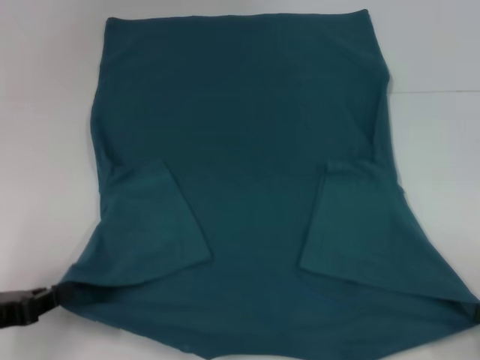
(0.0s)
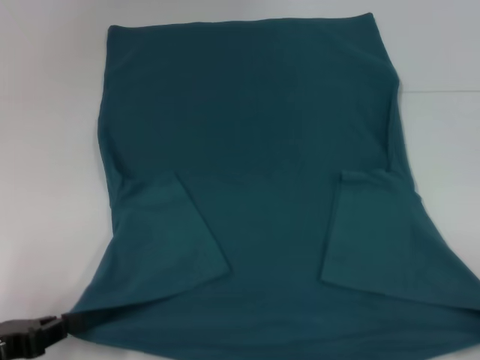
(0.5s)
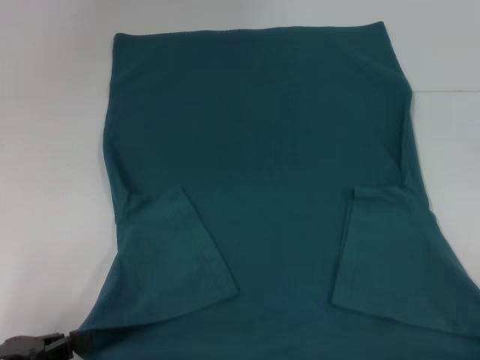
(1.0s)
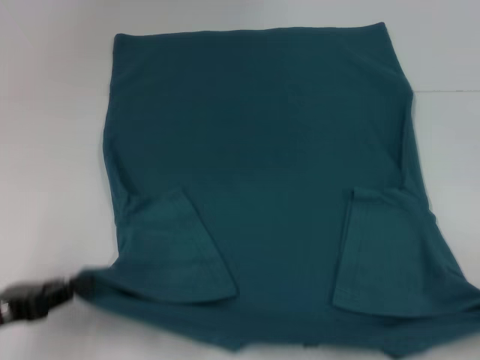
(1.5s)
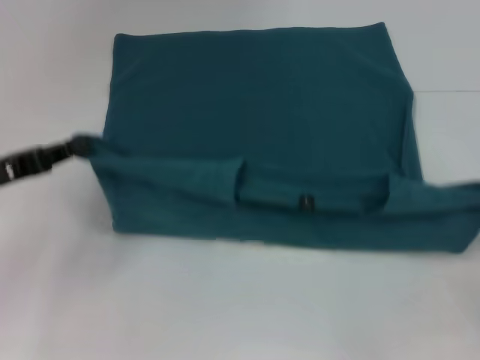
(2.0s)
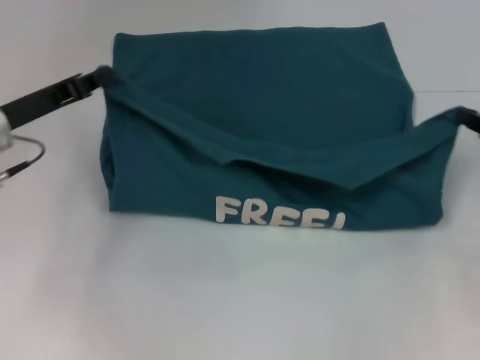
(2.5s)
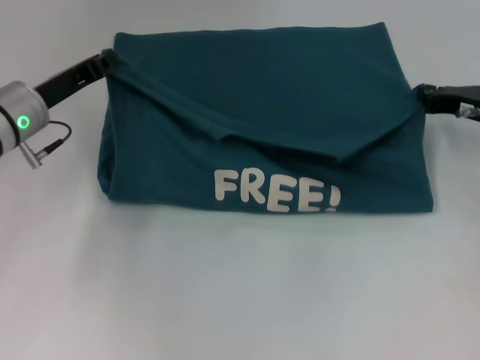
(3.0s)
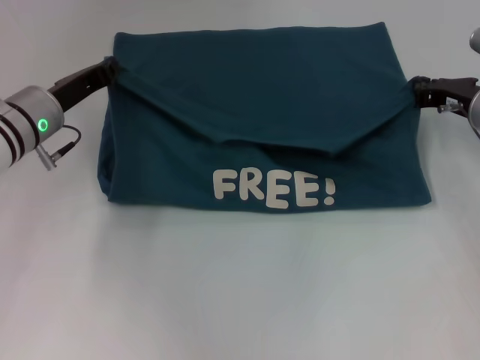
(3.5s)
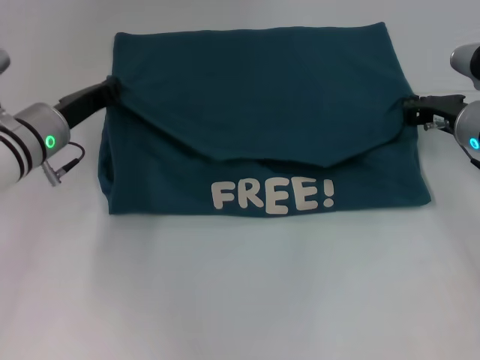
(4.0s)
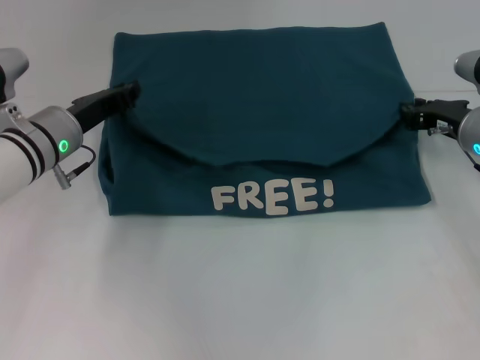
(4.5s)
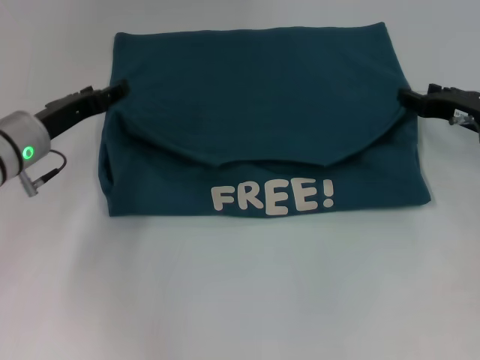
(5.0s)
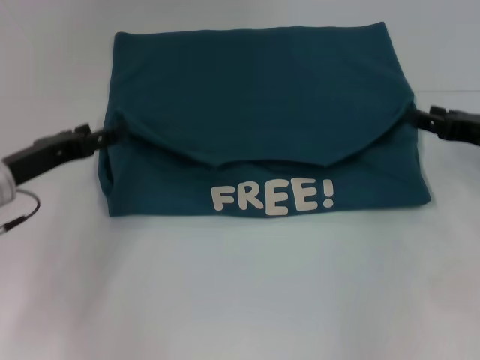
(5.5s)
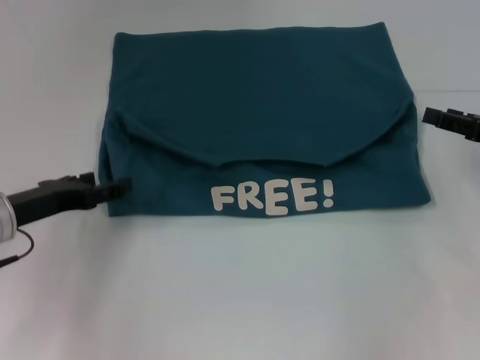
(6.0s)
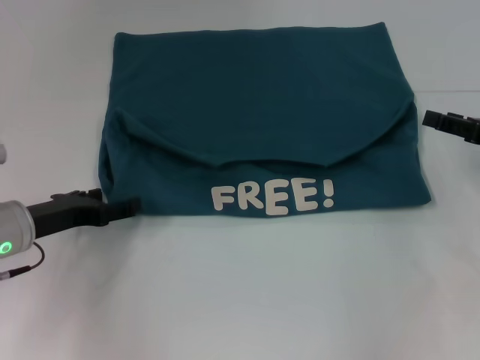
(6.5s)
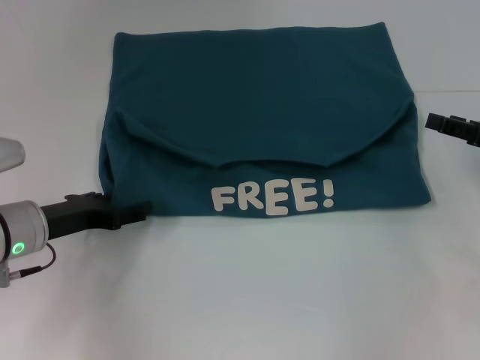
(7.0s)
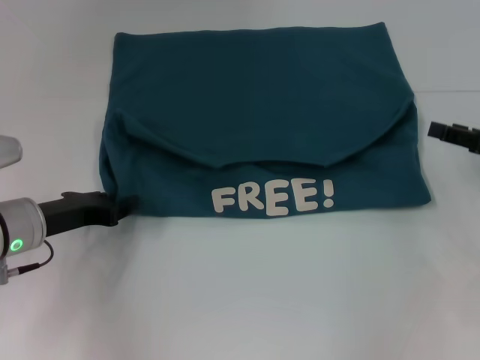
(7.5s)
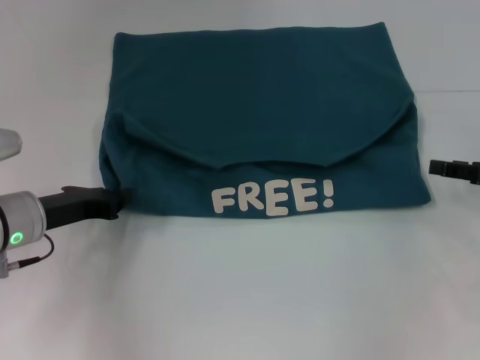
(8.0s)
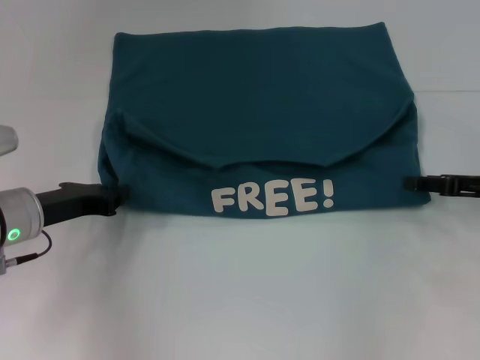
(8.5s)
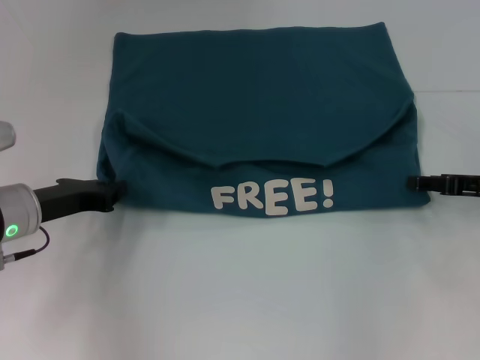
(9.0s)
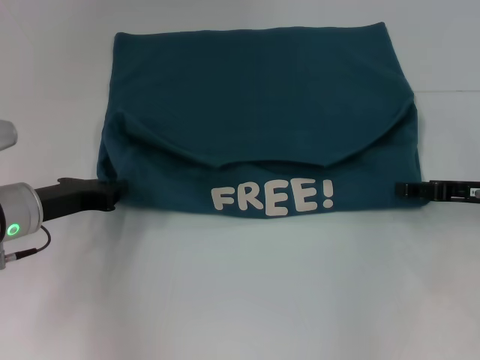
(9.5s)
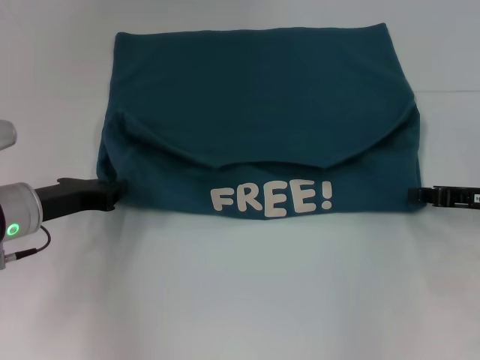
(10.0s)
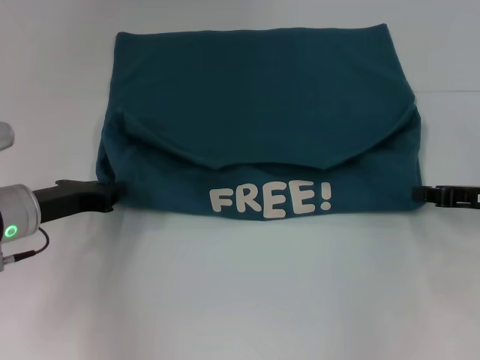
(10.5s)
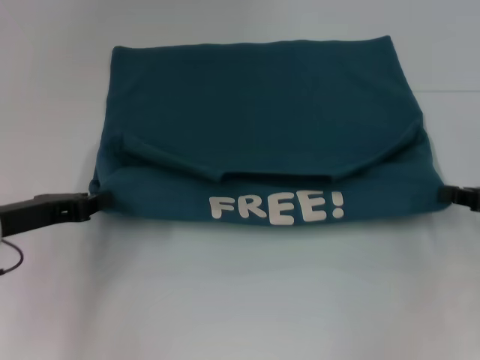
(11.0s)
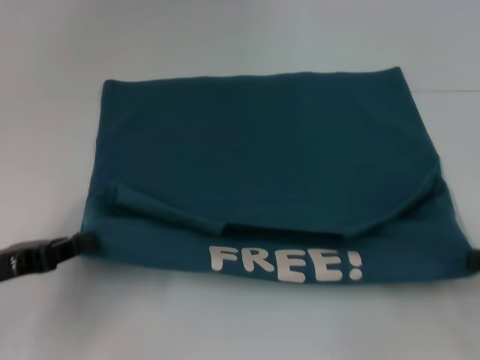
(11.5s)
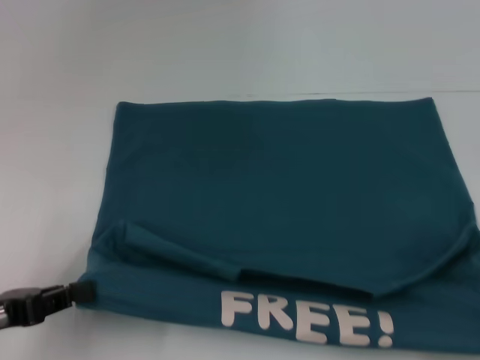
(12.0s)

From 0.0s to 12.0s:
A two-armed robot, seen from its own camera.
Step, from 0.0s to 4.5s: Fold the clothes to the left.
Step, from 0.0s to 4.5s: Fold the clothes to the right.
From 0.0s to 2.0s: The two grippers go some 10 cm forward and upward.
From 2.0s to 4.0s: The right gripper heads forward and to the left, covering approximately 25 cm, while the left gripper travels forward and to the right by approximately 15 cm.
From 4.0s to 6.0s: The right gripper travels to the right and backward by about 10 cm, and opens up. The left gripper goes about 10 cm backward, and opens up.
From 6.0s to 8.0s: The left gripper closes.
From 8.0s to 10.0s: The right gripper closes its fingers.
From 10.0s to 12.0s: The left gripper travels backward and to the left by about 15 cm; the right gripper shifts approximately 20 cm backward and to the right.

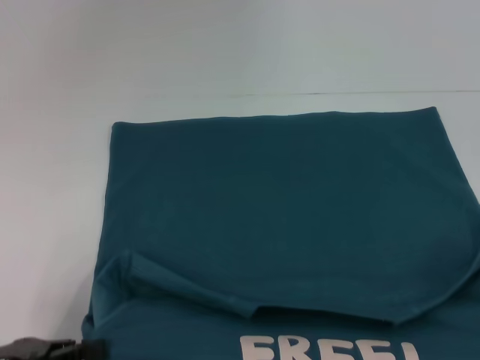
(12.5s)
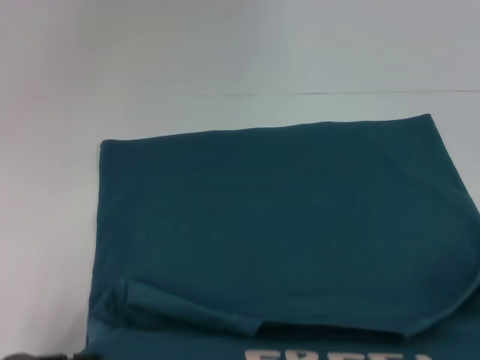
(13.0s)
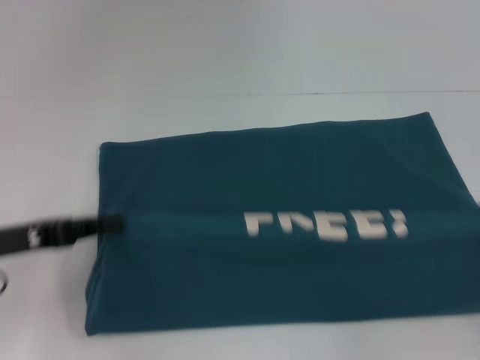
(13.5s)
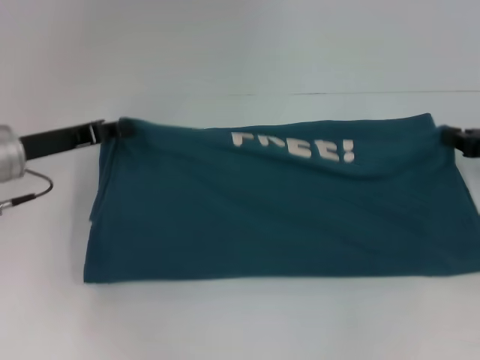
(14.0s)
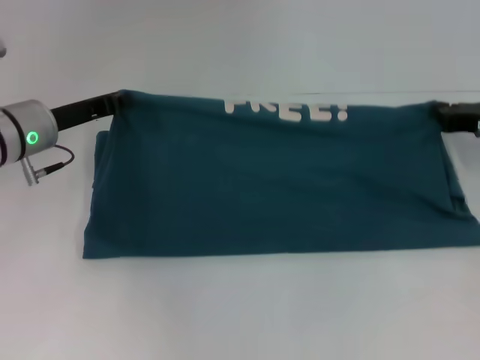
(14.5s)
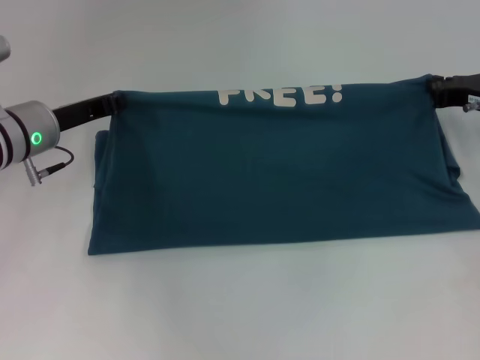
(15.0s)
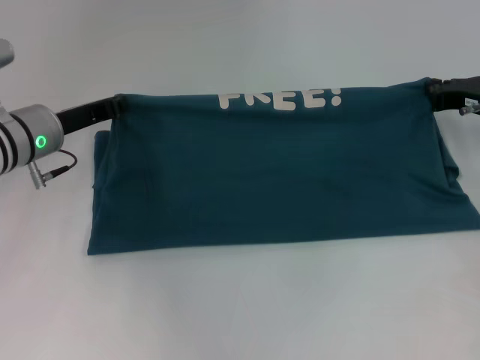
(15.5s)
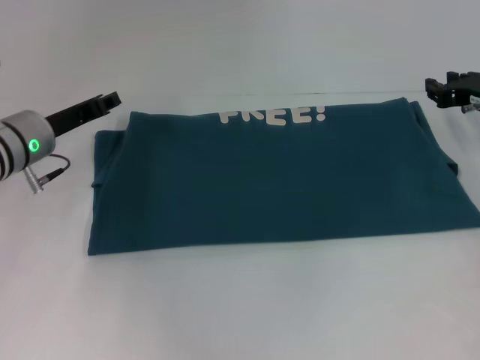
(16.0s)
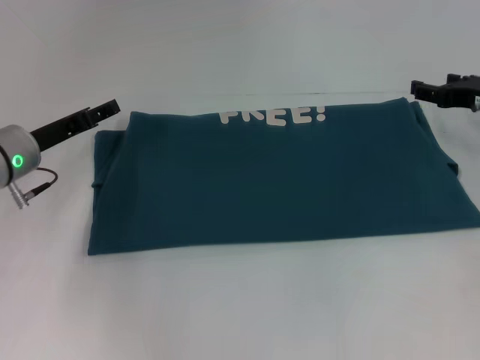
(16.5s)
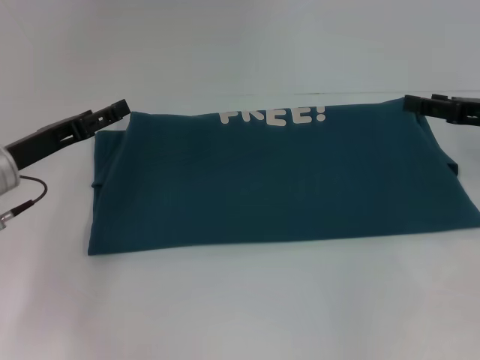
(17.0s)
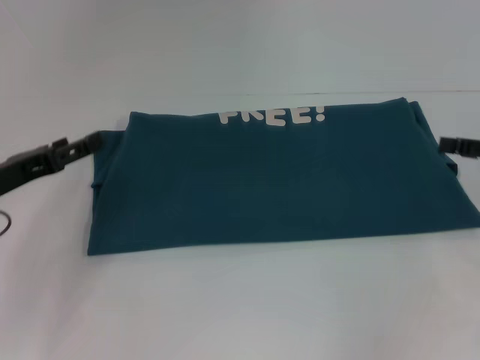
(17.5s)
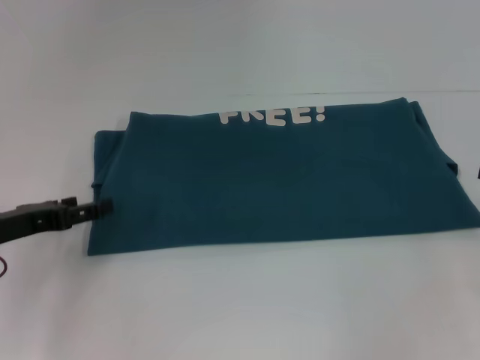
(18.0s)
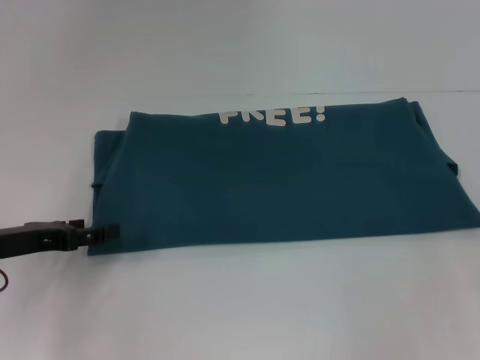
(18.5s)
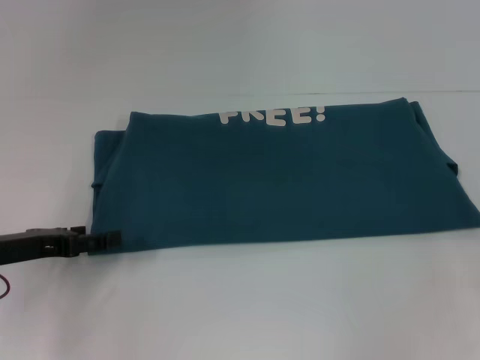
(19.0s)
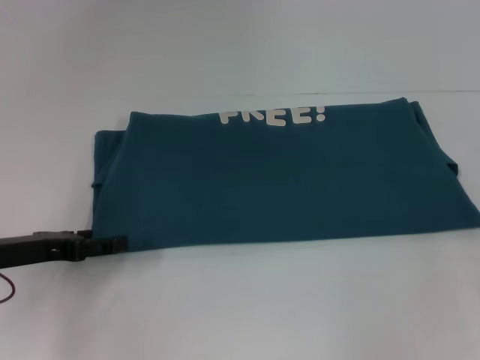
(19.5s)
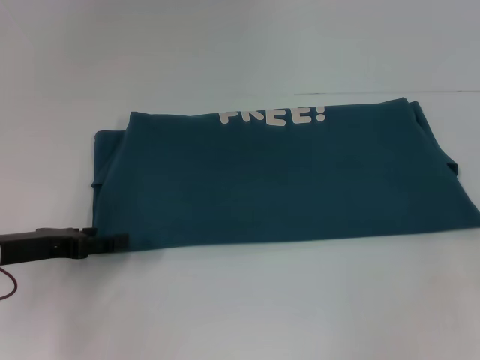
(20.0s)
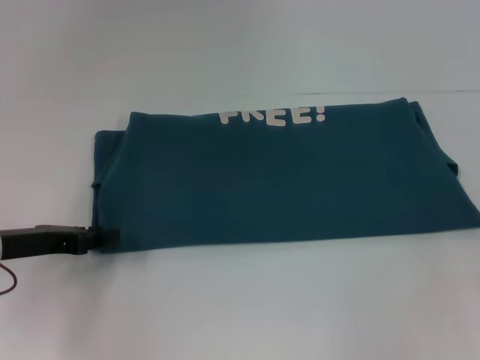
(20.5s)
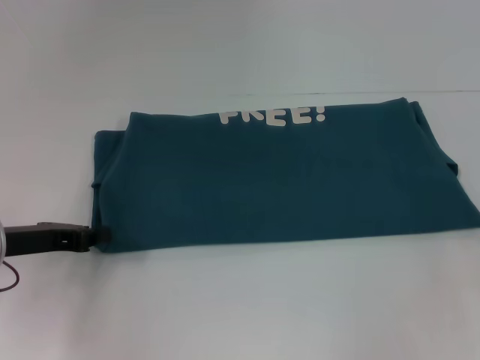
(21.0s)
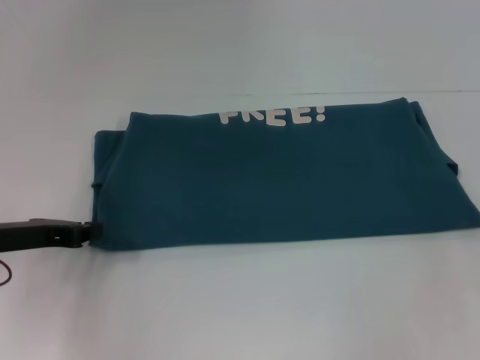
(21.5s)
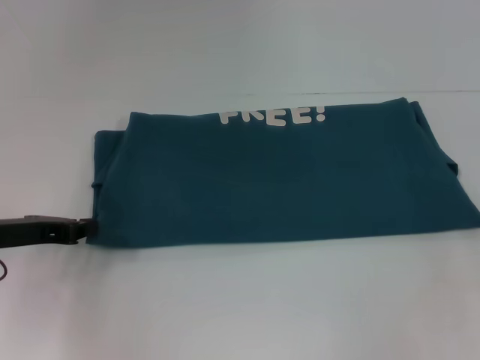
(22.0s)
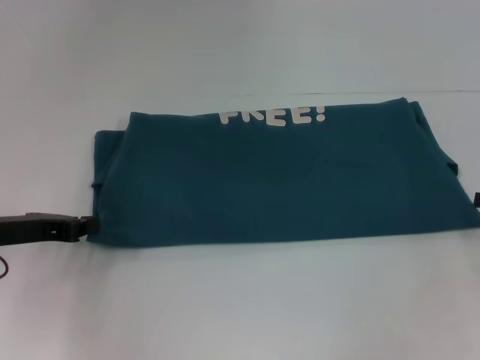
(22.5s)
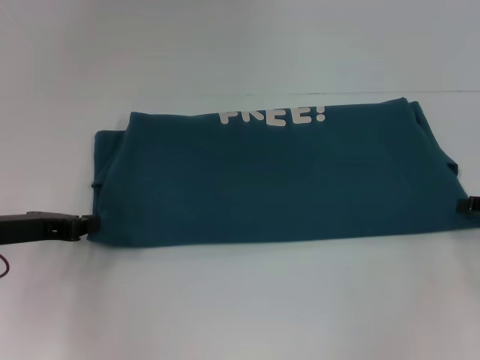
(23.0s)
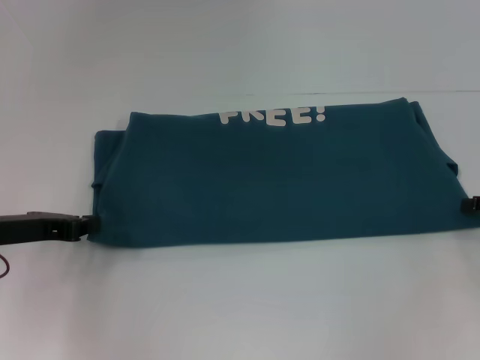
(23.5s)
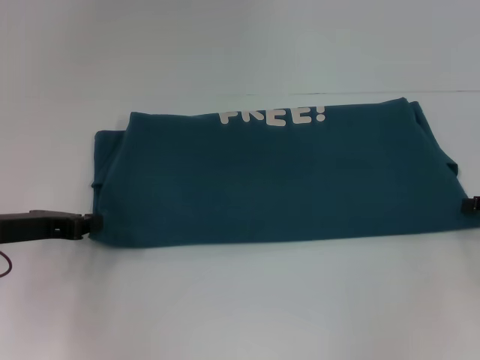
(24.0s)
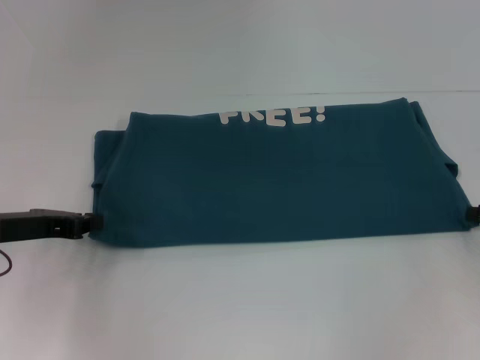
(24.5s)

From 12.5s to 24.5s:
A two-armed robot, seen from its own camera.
Step, from 13.0s to 16.0s: Fold the clothes to the right.
From 12.5s to 14.5s: The grippers both shift forward by some 25 cm.
From 14.5s to 16.5s: The left gripper opens its fingers. The right gripper opens.
From 16.5s to 18.5s: The left gripper heads backward, covering some 10 cm. The right gripper travels backward and to the right by roughly 15 cm.
From 18.5s to 20.5s: The two grippers keep their place.
From 20.5s to 22.5s: The left gripper closes its fingers.

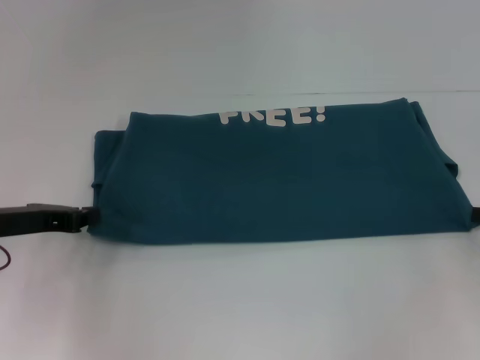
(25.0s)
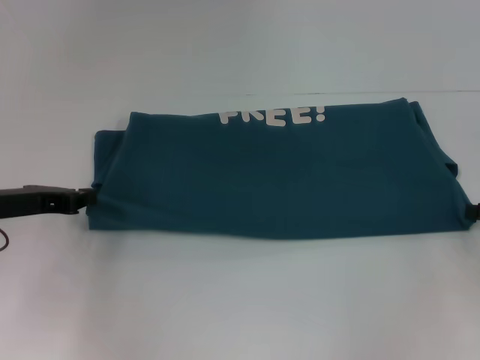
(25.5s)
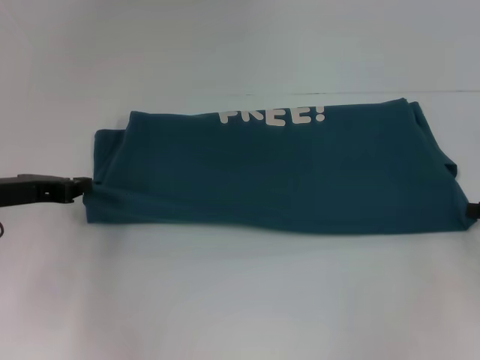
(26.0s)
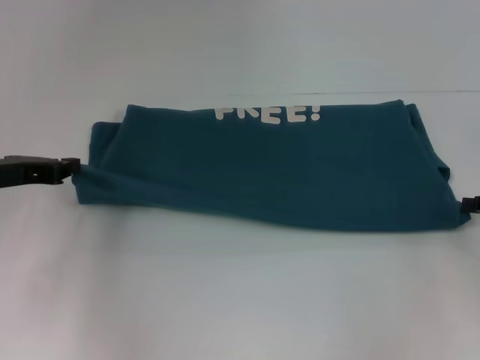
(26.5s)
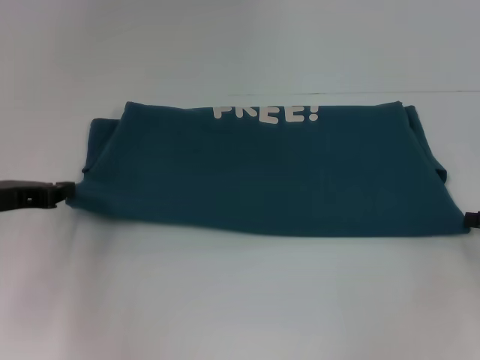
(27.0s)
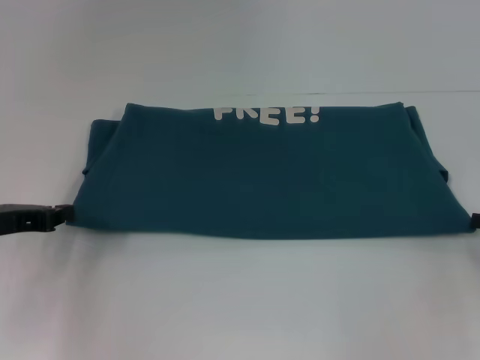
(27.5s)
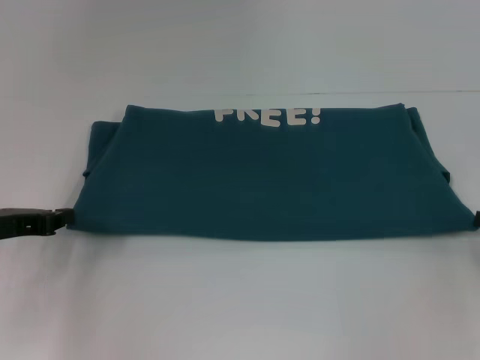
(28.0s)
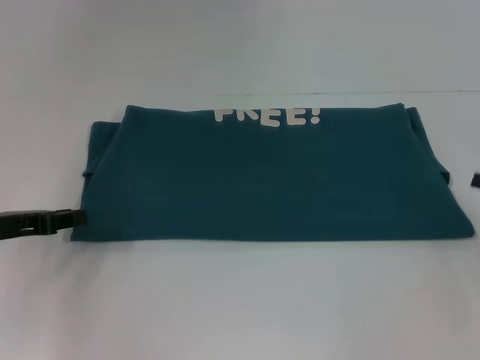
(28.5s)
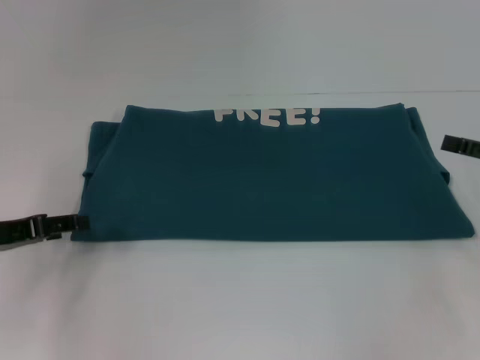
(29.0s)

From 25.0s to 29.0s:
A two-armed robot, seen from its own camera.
From 25.0s to 27.0s: The grippers make only small movements.
From 27.0s to 29.0s: The left gripper opens its fingers, while the right gripper opens its fingers.
